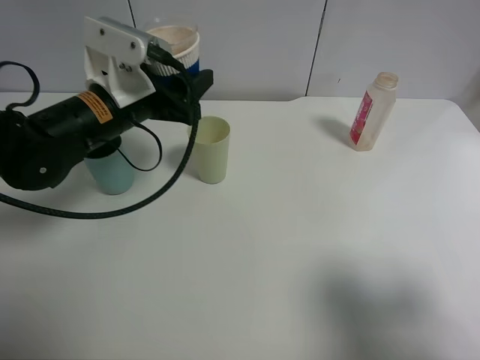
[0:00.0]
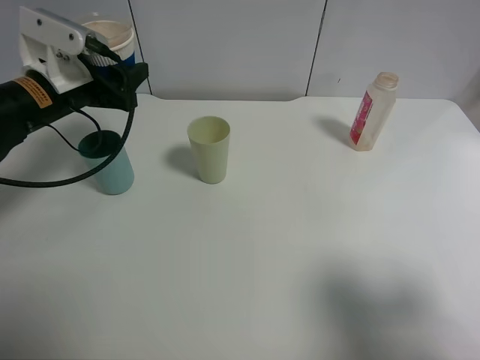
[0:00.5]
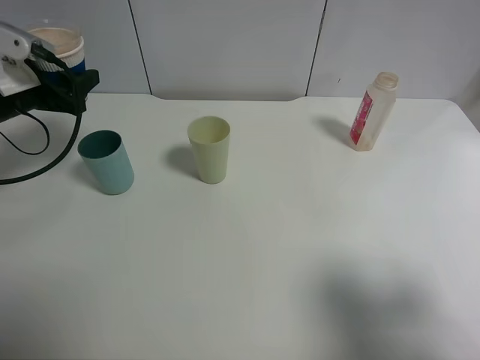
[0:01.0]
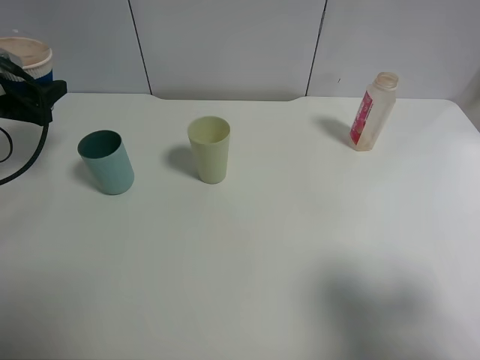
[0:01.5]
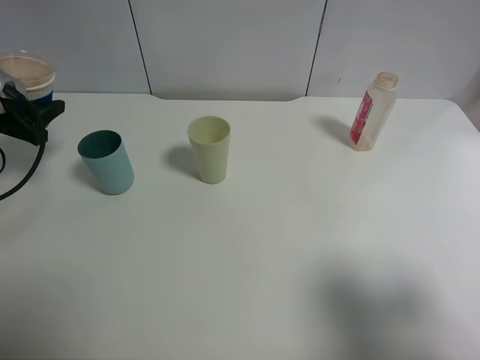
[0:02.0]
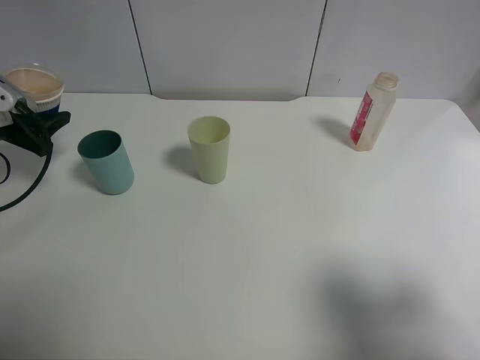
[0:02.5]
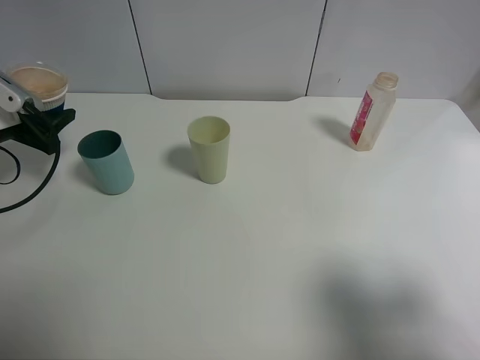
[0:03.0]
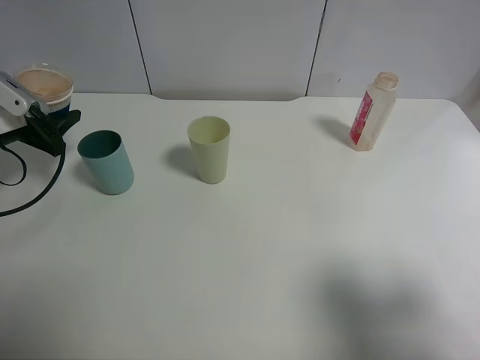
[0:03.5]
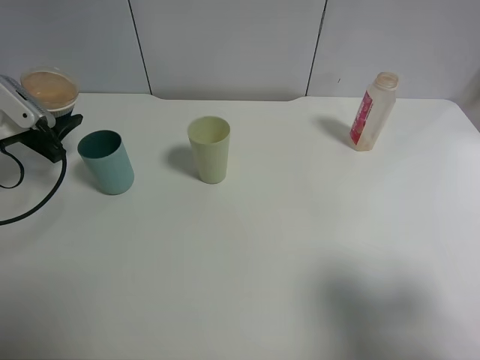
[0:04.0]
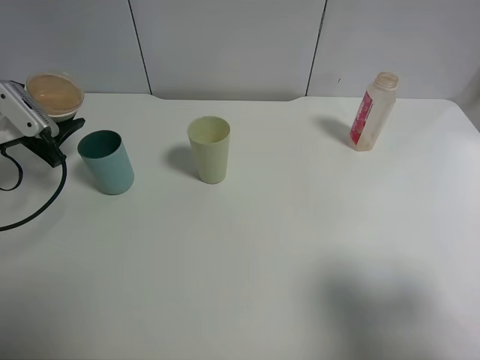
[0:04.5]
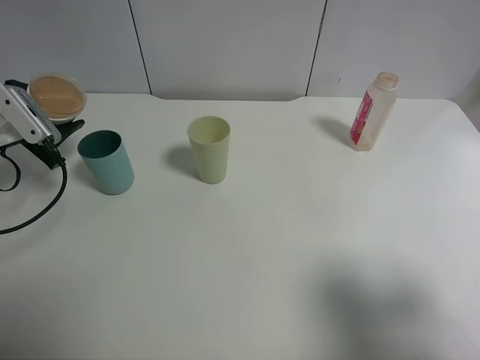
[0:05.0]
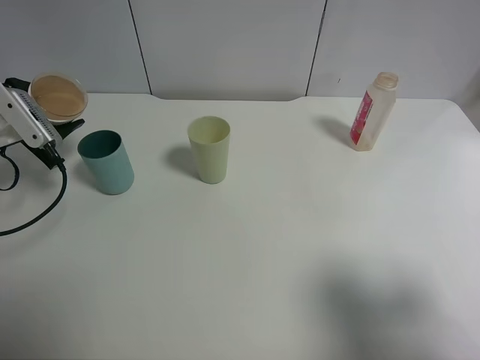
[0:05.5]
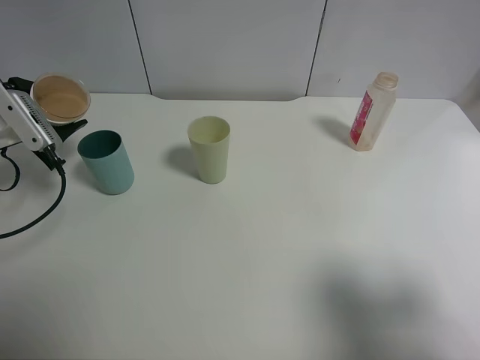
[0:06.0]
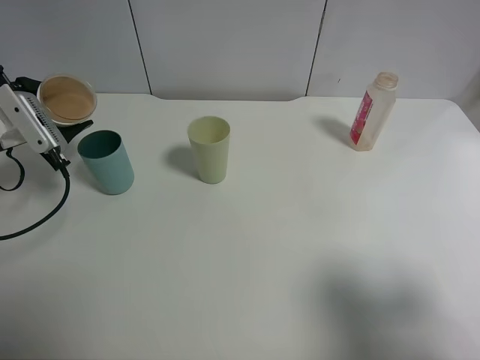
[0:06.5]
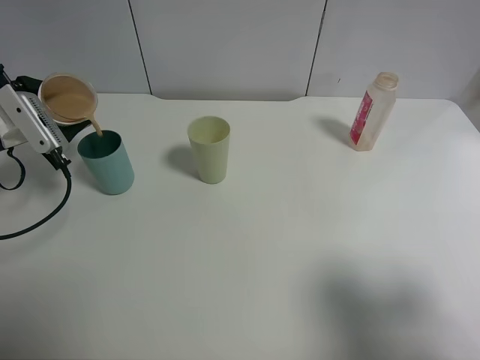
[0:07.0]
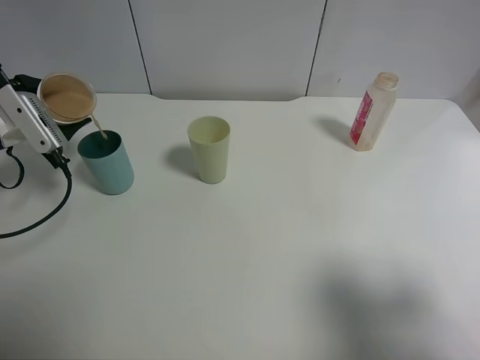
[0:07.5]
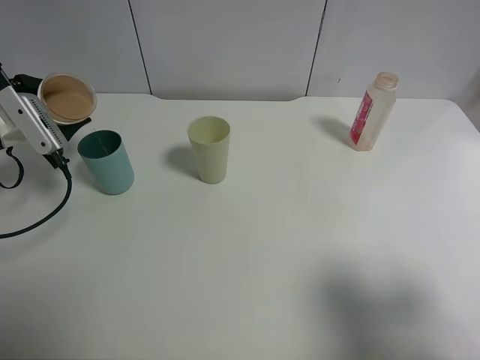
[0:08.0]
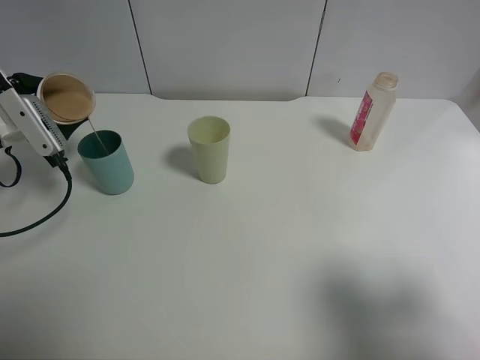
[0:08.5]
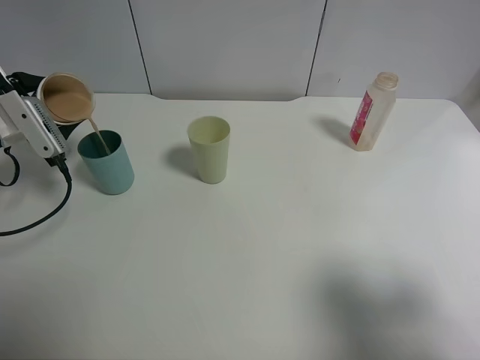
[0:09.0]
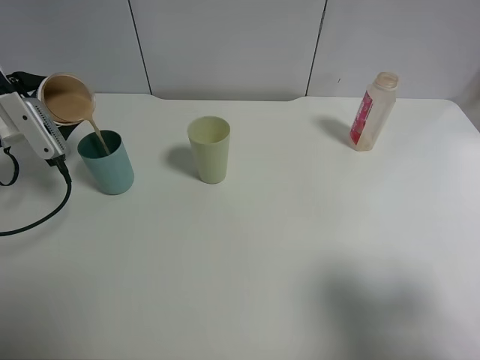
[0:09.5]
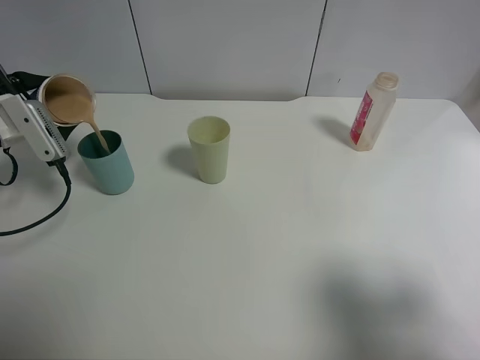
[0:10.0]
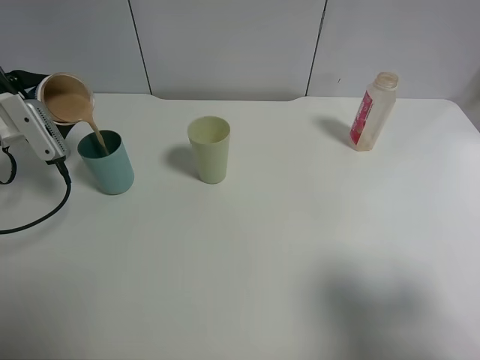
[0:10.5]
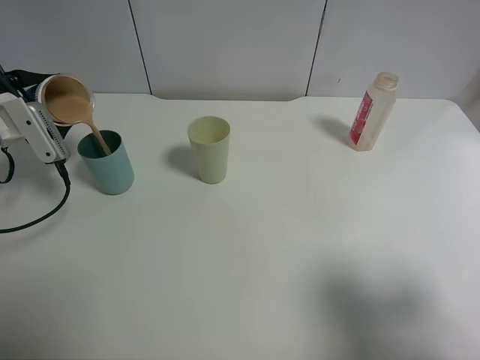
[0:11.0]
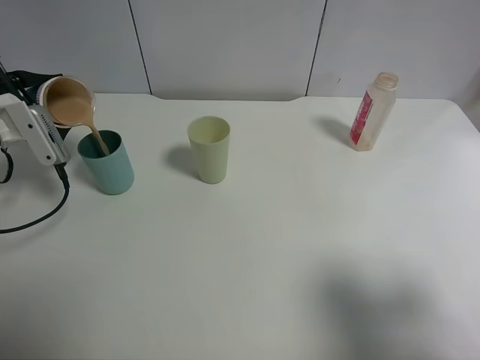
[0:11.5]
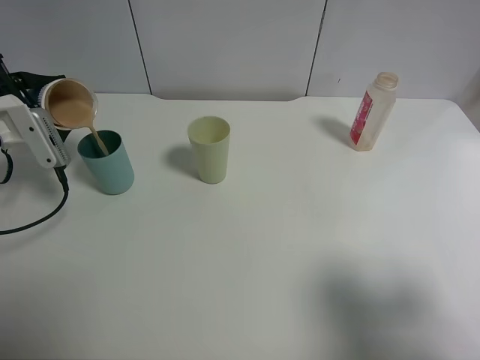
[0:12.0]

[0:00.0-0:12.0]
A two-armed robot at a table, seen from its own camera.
Task of the whole recording: use a clamp to hold the bottle of the drink, pour the beverage into a random cup, then clamp the cup containing the drink and pour the drink into another random cup.
0.0 to 2.0 s: The left gripper moves to the left, some 25 cm.
2.0 to 4.0 s: There are only small adjustments of the grippers.
4.0 to 6.0 s: The grippers stay close to where they were, moving slightly.
6.0 to 8.0 s: The two grippers keep their place.
8.0 to 12.0 s: There are only small adjustments of the grippers.

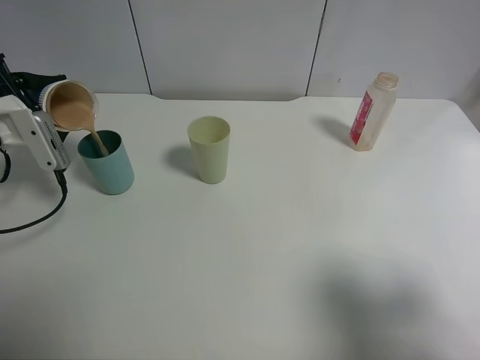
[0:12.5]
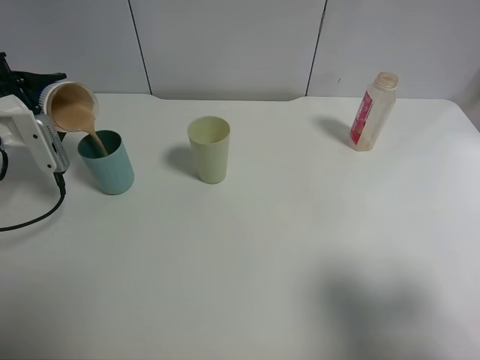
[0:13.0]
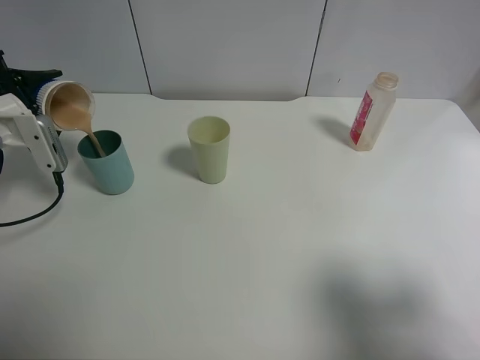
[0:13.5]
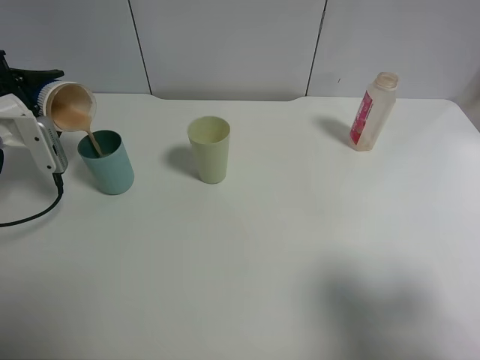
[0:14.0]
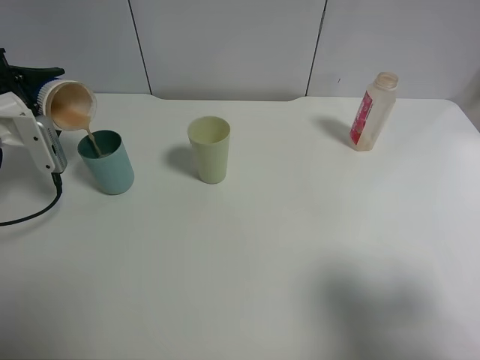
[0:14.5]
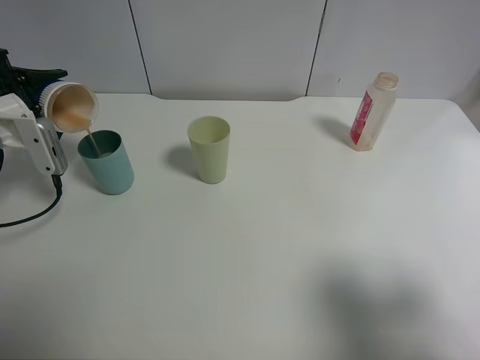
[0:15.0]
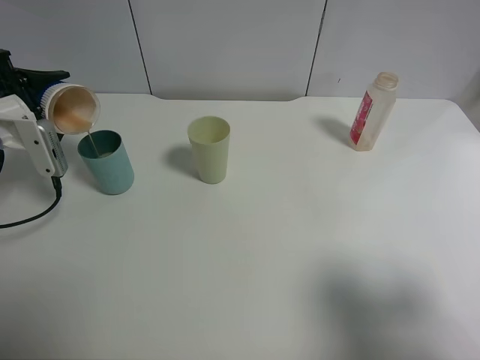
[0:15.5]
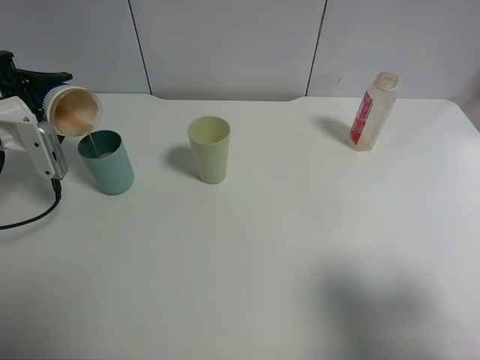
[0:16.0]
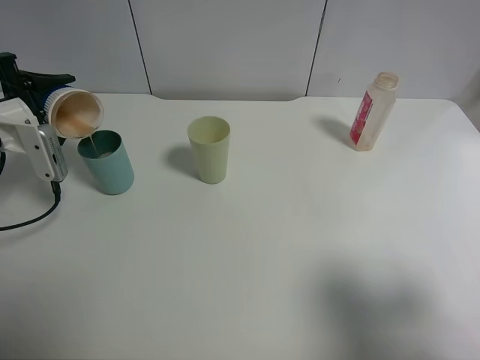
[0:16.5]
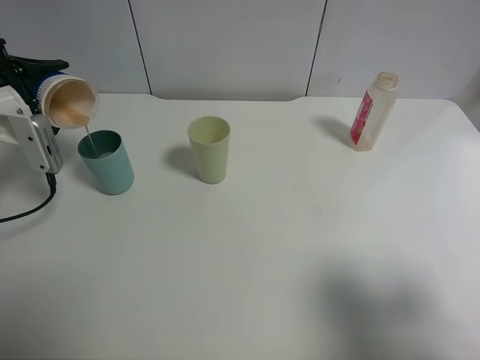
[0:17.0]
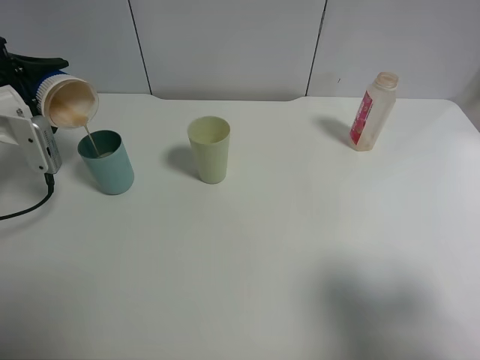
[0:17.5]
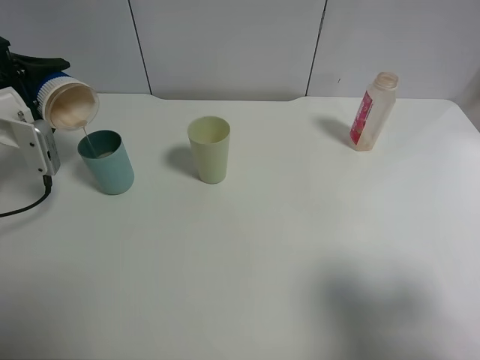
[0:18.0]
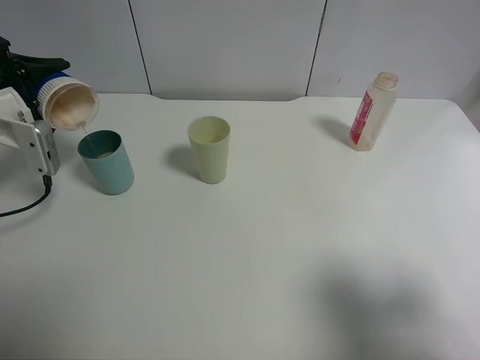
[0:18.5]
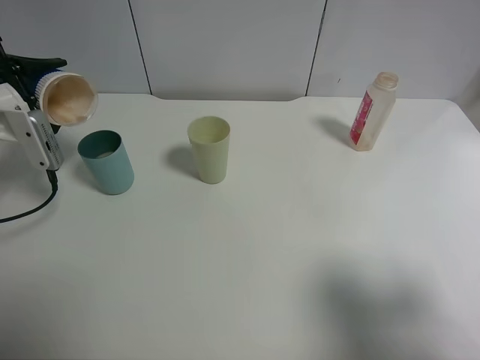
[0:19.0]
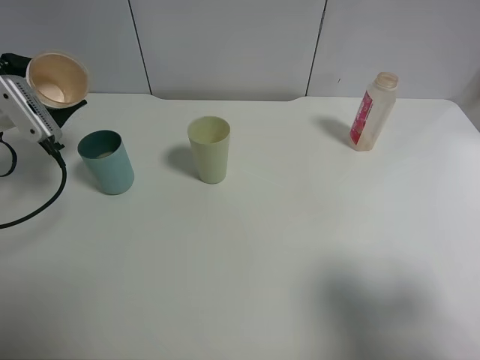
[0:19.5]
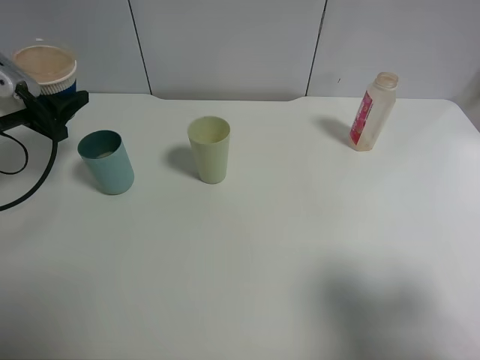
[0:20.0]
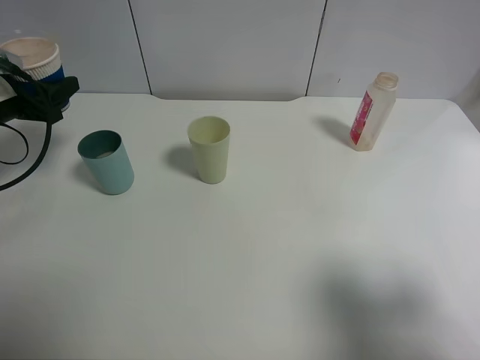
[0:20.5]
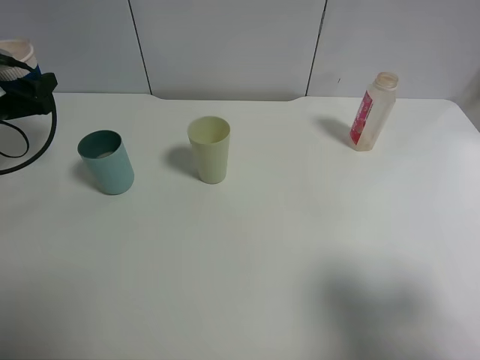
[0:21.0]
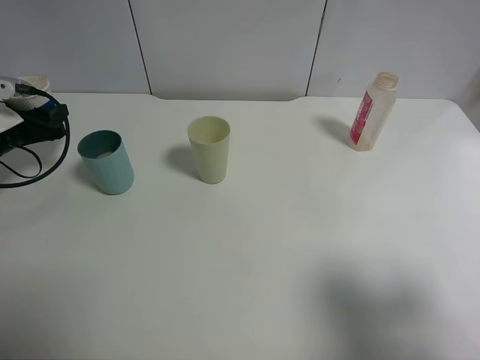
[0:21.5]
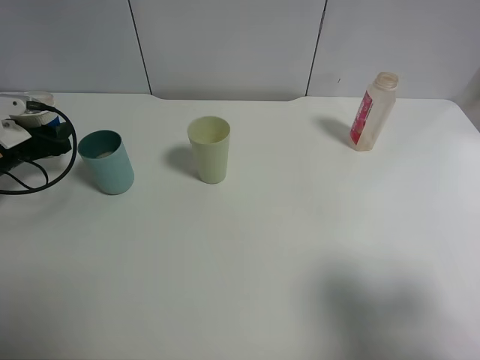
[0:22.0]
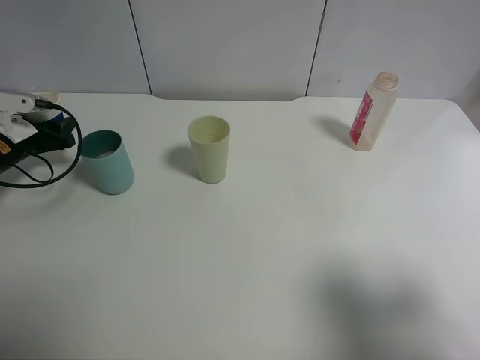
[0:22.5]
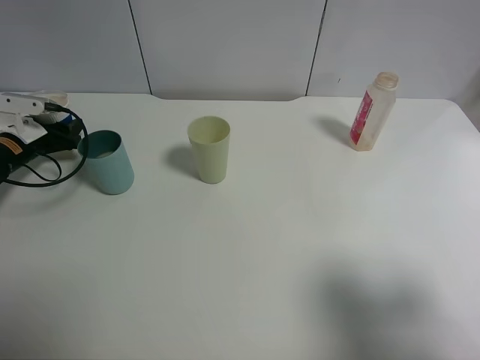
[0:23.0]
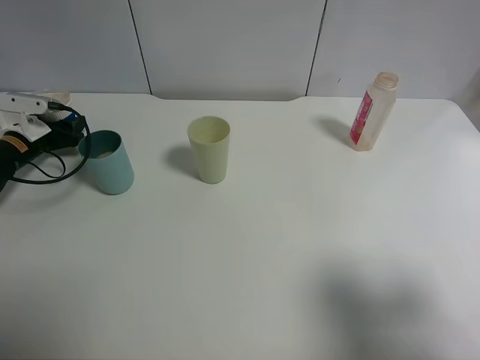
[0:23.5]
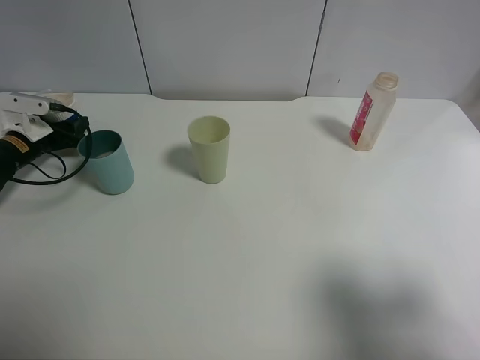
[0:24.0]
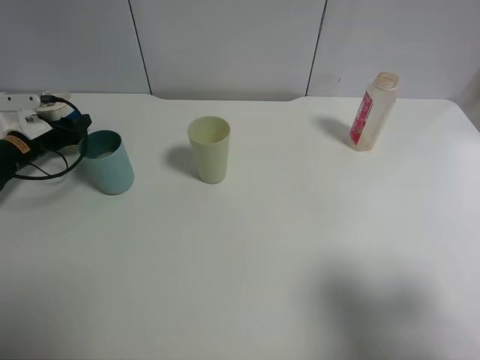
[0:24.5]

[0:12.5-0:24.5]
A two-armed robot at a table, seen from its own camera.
Task of the whole recording: use a clamp to hold the bottle of the drink, pour the beverage into a random cup, then clamp the cup containing the drink and pour the drink into another random cup.
Step, 12.5 to 19.5 s: Pour the drink into the blue plastic cup with left gripper.
12.5 to 16.5 s: The grippers move only a little.
16.5 to 18.5 s: The grippers move only a little.
20.5 to 22.5 s: The left gripper travels downward by approximately 10 cm.
22.5 to 24.5 s: The left gripper shifts by approximately 5 cm.

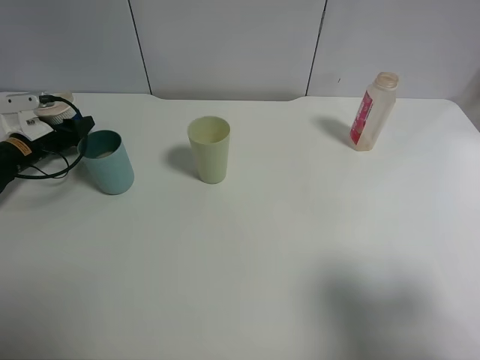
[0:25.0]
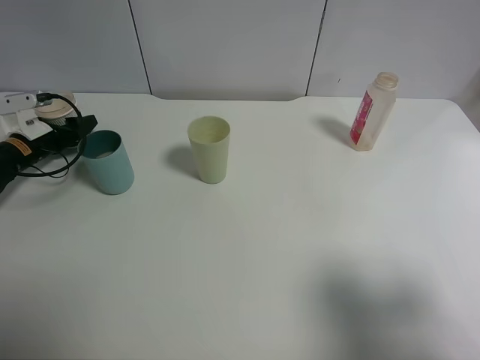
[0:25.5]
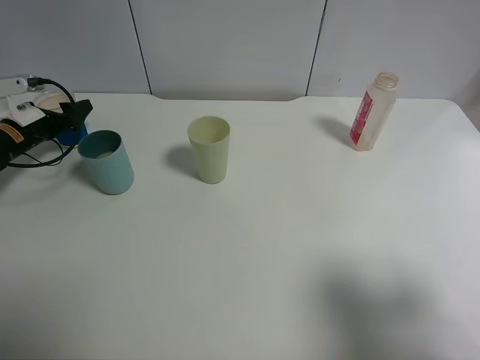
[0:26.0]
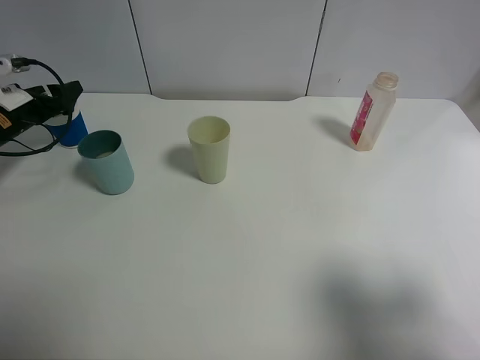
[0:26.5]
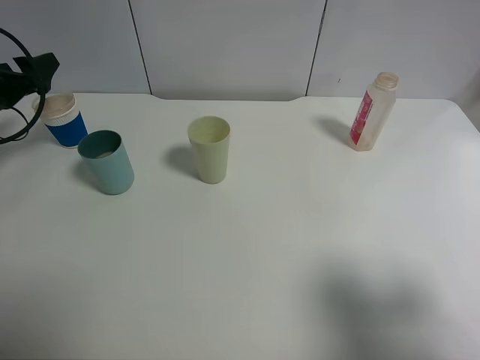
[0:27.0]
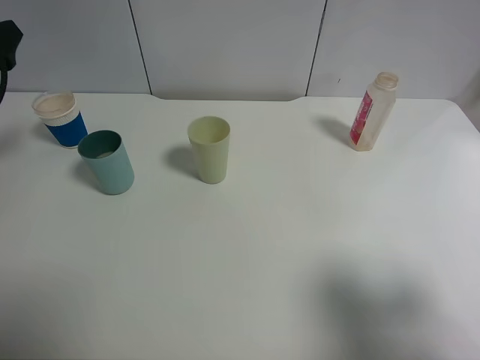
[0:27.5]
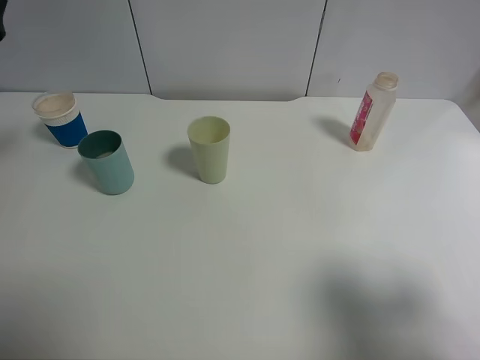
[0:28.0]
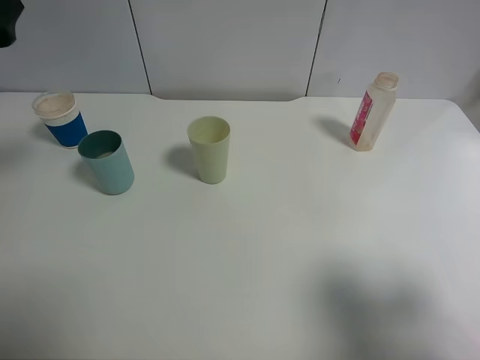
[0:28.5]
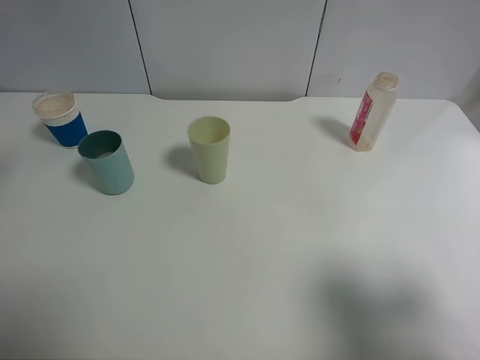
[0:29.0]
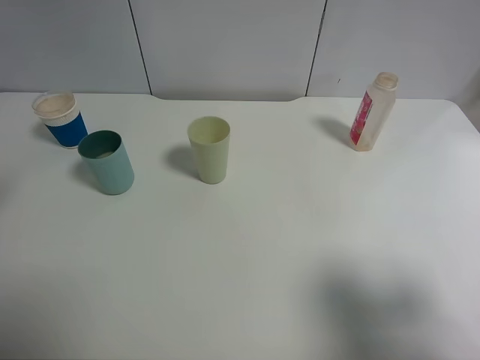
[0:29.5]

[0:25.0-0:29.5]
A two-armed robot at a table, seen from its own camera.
Task of the whole recording: use a clamp to hold the bottle of the drink, pour the beverage into a random cup, then clamp the cup containing the drink and pour the drink into another random cup.
25.0 to 27.0 s: The left gripper moves upward, roughly 10 cm, and opens.
27.0 to 29.5 s: The left gripper shifts approximately 25 cm backward and upward.
